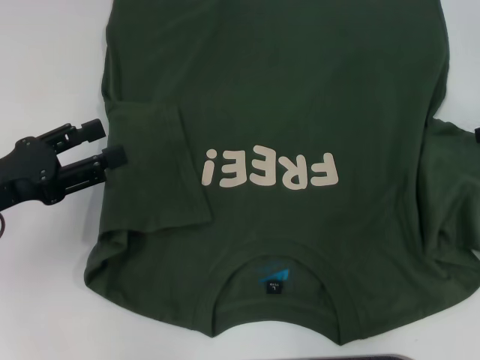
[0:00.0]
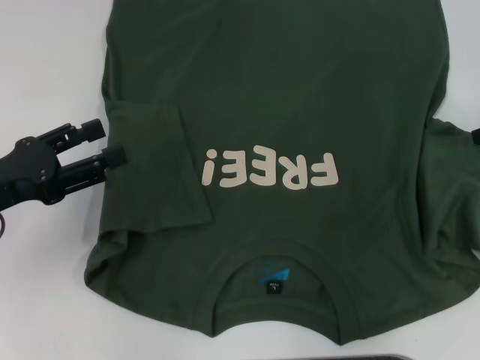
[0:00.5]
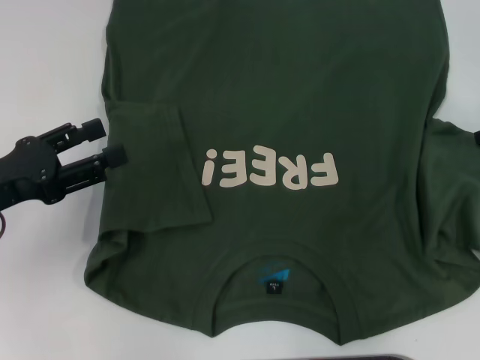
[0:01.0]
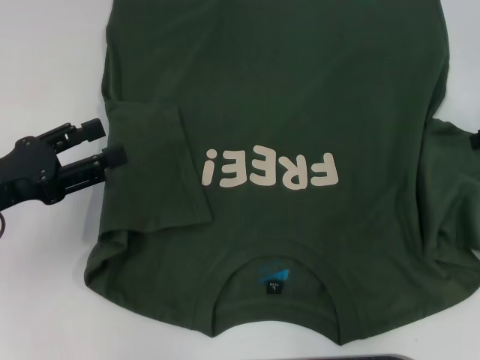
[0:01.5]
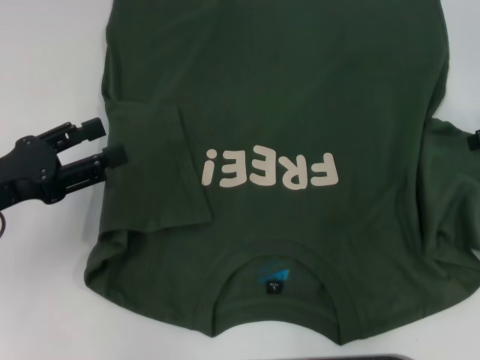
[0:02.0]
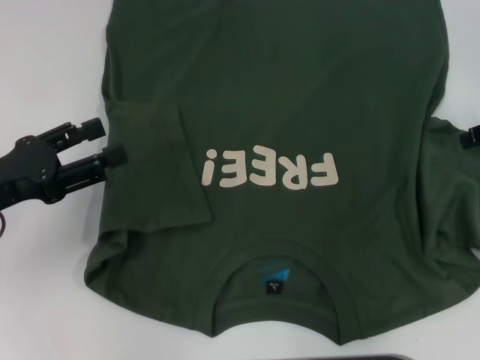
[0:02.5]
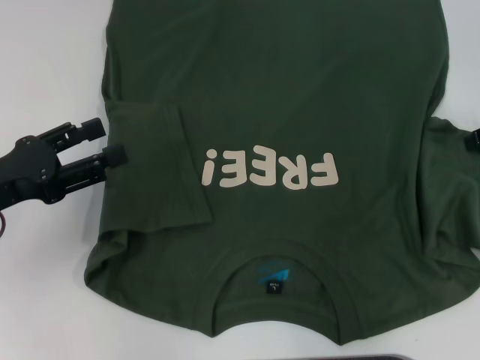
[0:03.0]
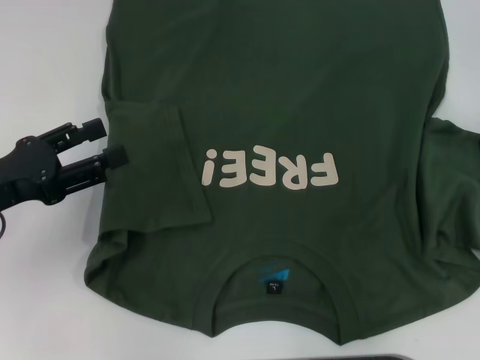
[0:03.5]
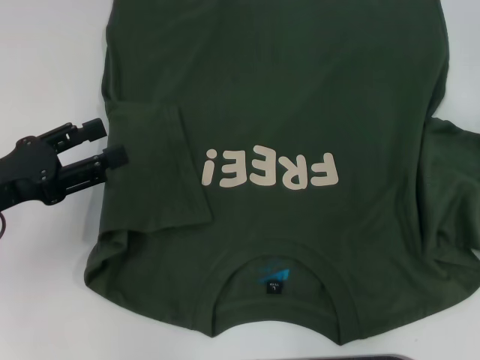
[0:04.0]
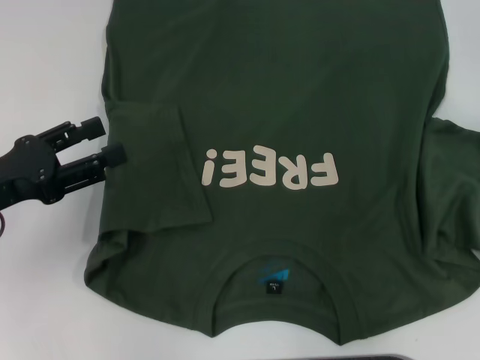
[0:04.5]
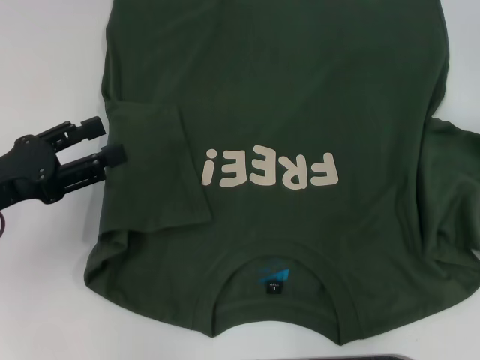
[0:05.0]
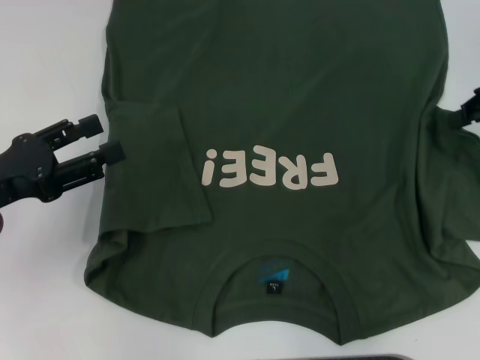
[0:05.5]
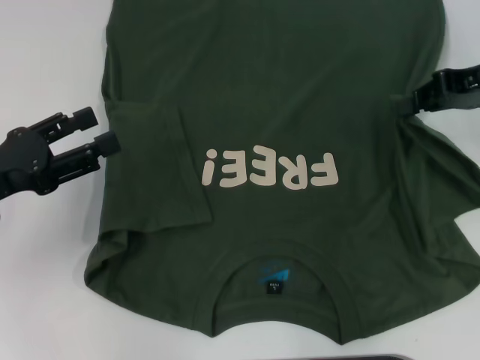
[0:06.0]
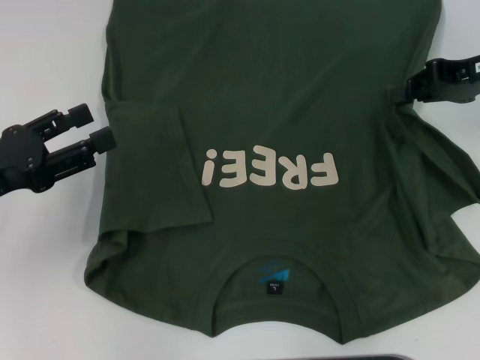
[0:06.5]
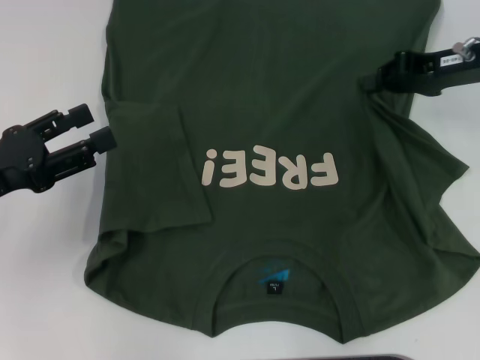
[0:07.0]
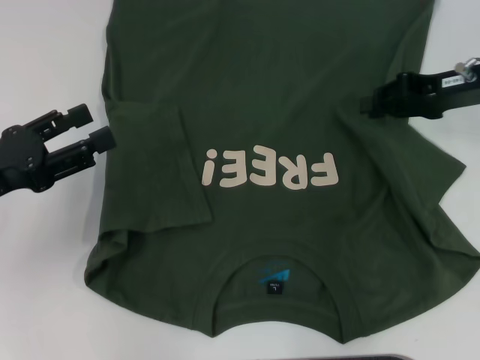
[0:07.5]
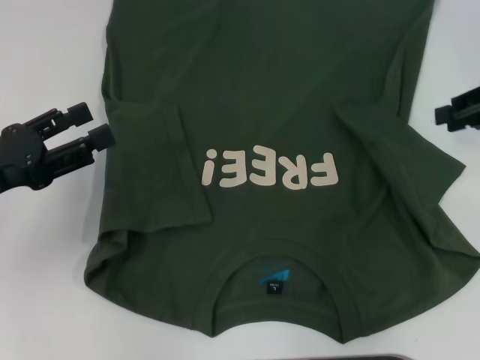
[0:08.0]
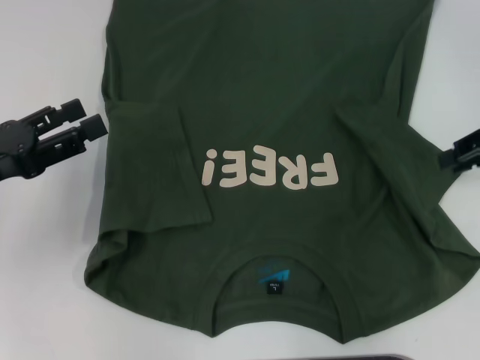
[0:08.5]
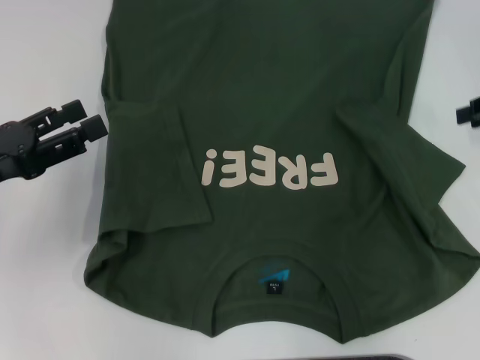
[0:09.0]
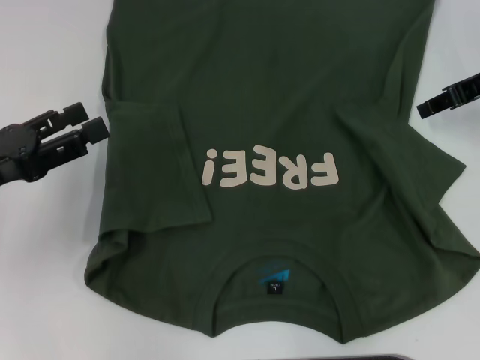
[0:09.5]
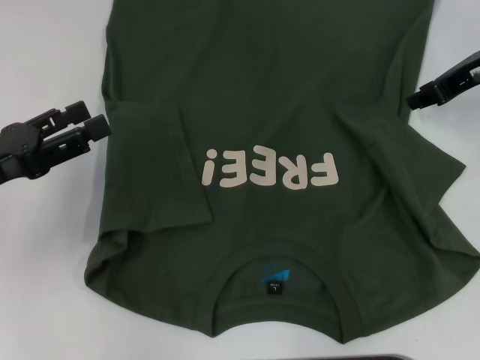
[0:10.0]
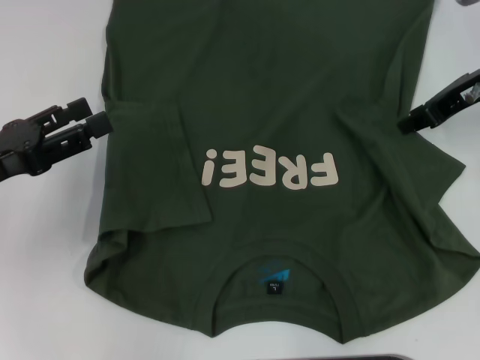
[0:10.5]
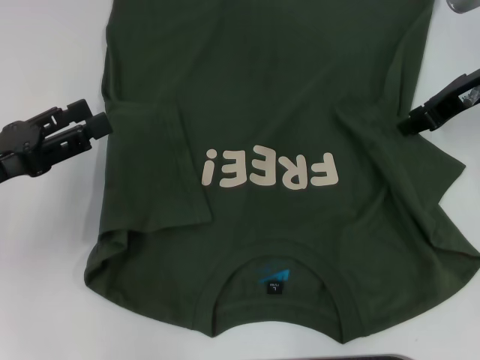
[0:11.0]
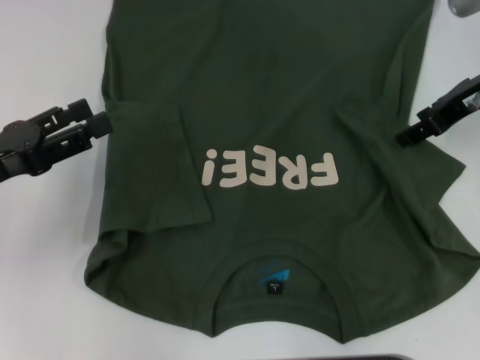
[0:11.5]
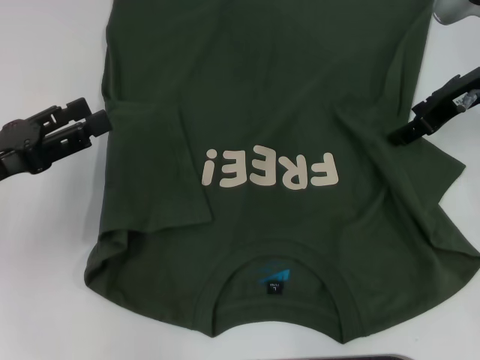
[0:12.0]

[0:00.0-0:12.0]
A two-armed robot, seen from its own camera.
0:00.0 to 0:02.0: The two grippers keep their place.
0:04.0 to 0:06.0: The right gripper shifts approximately 5 cm to the left.
0:06.0 to 0:08.0: The right gripper shifts by about 5 cm.
0:08.0 to 0:10.0: The right gripper is displaced to the left by some 5 cm.
0:10.0 to 0:12.0: The right gripper opens.

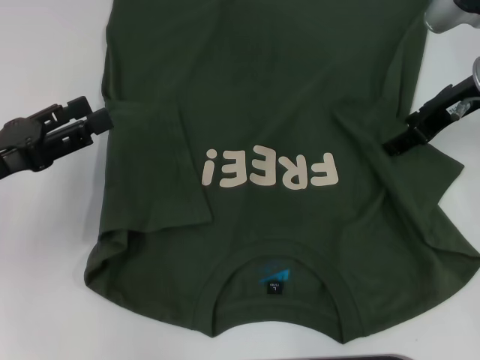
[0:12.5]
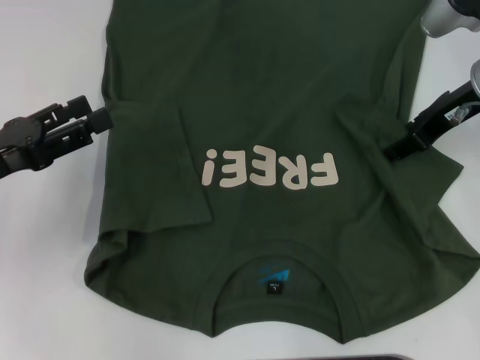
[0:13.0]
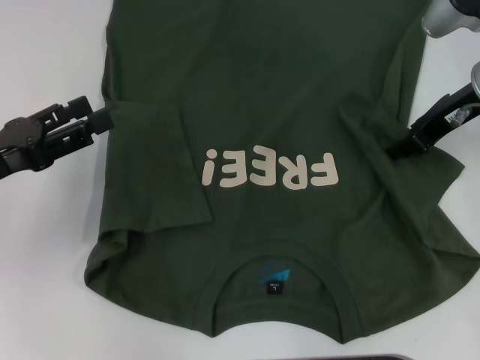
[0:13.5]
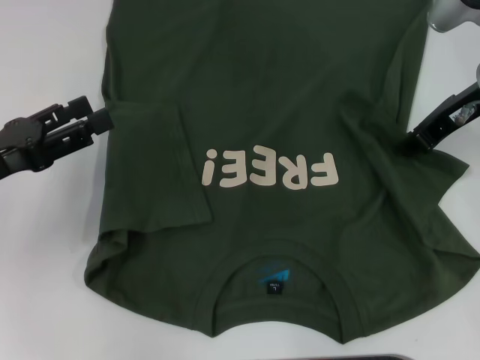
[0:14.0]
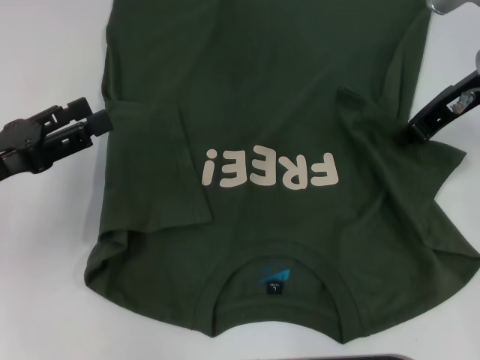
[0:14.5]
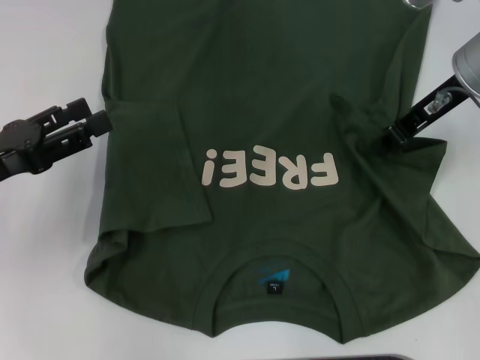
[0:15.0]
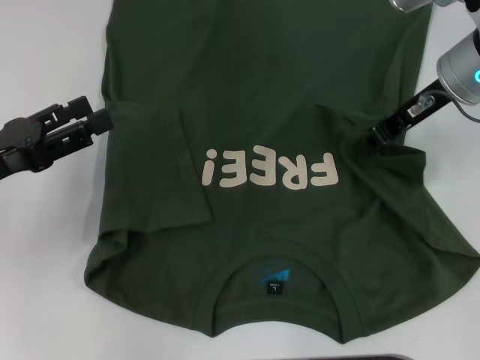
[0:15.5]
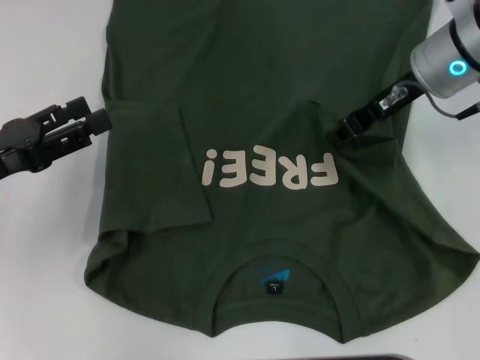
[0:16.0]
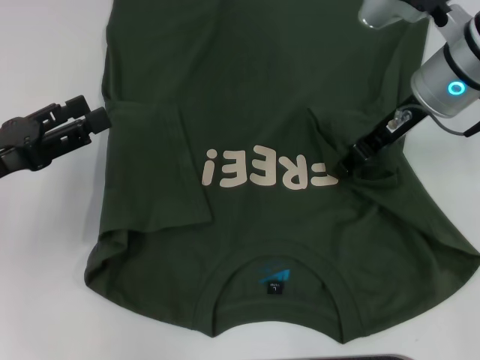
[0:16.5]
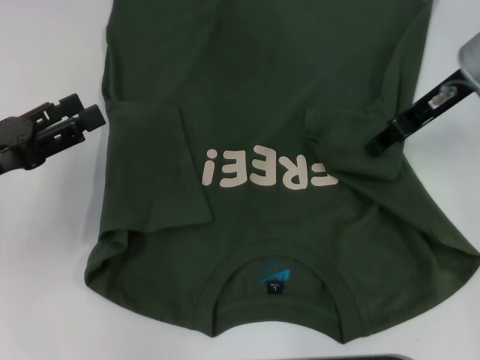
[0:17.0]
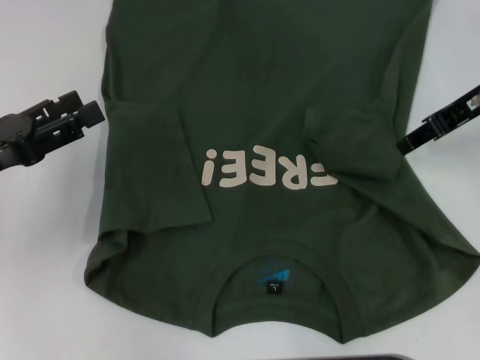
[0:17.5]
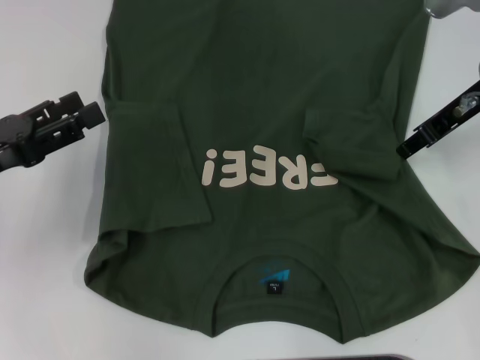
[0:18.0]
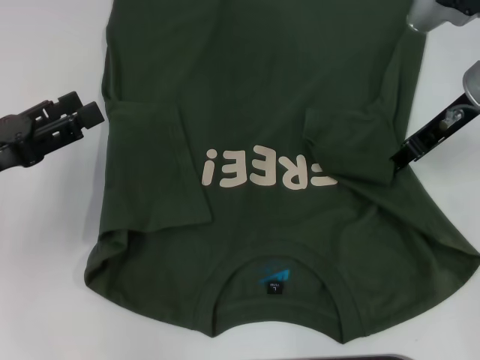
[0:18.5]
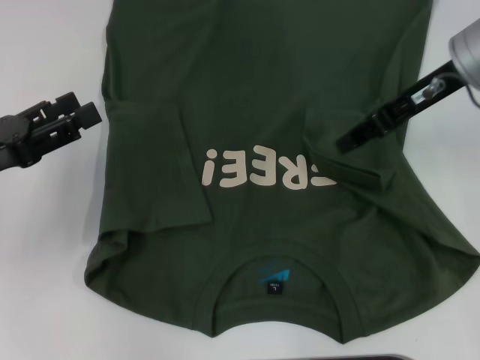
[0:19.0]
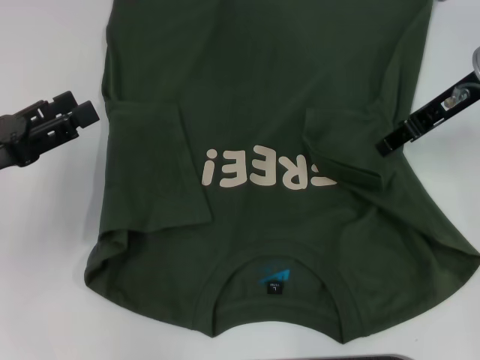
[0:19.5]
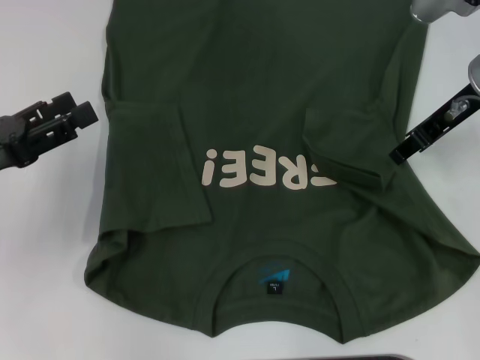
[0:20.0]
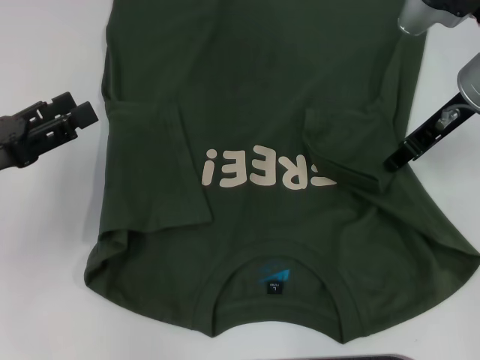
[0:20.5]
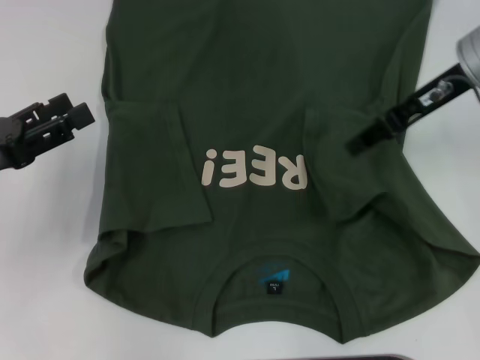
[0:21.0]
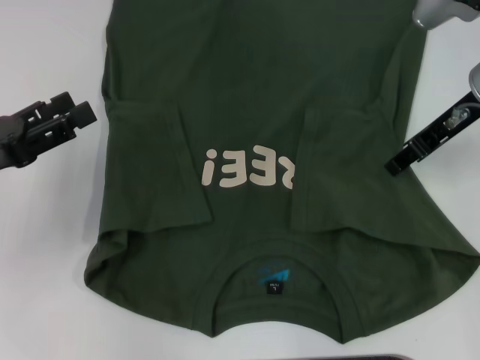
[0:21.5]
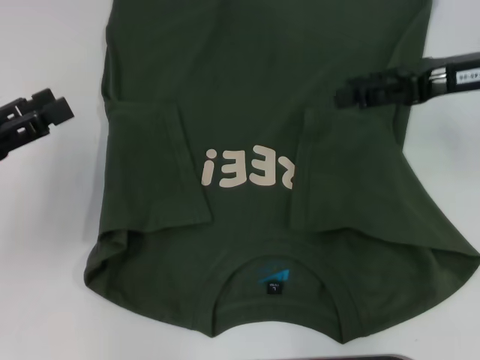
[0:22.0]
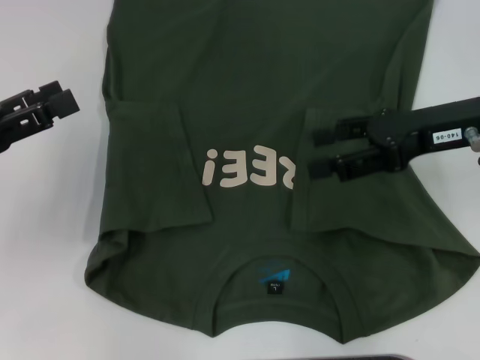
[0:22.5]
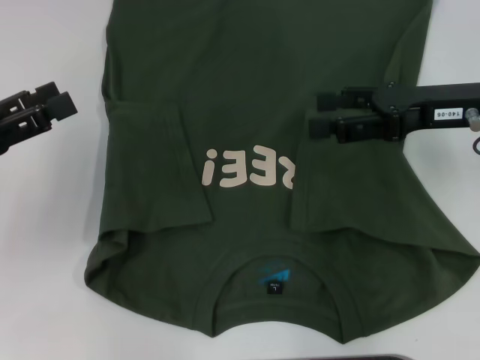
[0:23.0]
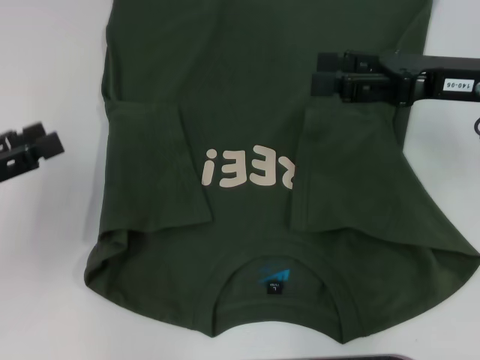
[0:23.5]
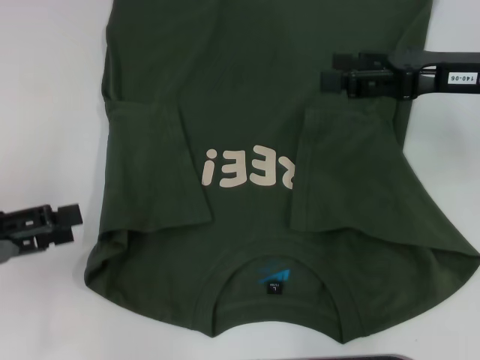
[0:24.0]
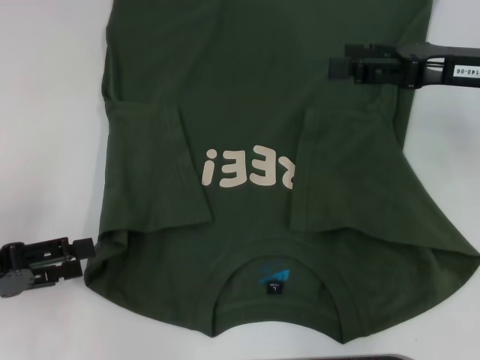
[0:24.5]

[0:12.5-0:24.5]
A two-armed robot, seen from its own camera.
Step, 0:12.5 to 0:21.5: Fold the bottom right sleeve with your right hand.
0:12.5 to 0:14.5: The right gripper closes up.
0:14.5 to 0:16.5: The right gripper goes about 5 cm to the left.
0:18.5 to 0:20.5: The grippers make only small movements.
0:20.5 to 0:22.5: The right gripper travels backward by roughly 5 cm, and opens up.
0:22.5 to 0:24.5: The left gripper shifts about 5 cm backward.

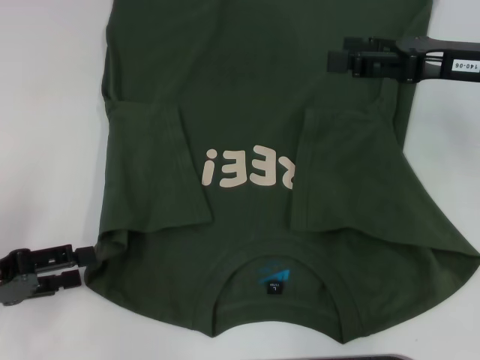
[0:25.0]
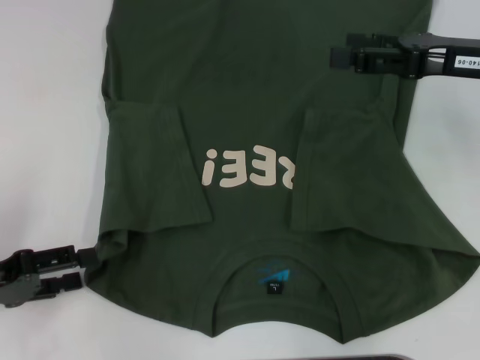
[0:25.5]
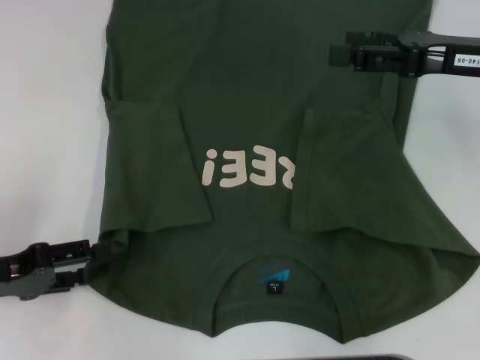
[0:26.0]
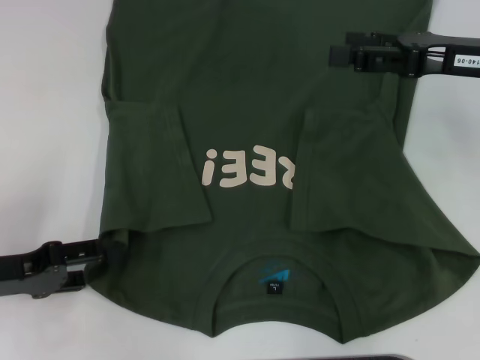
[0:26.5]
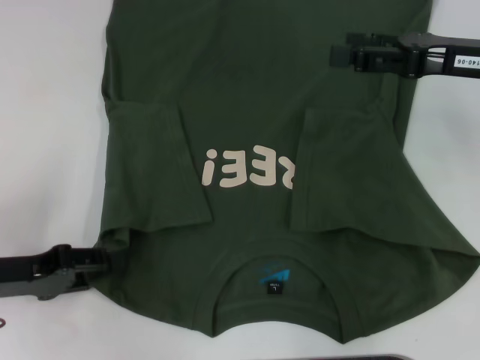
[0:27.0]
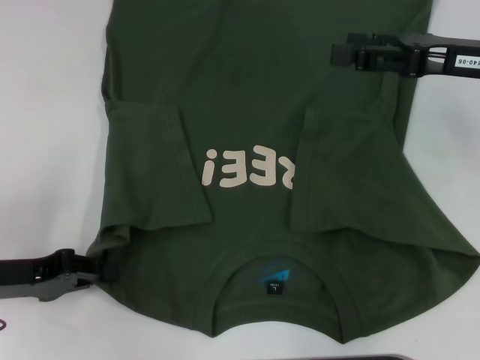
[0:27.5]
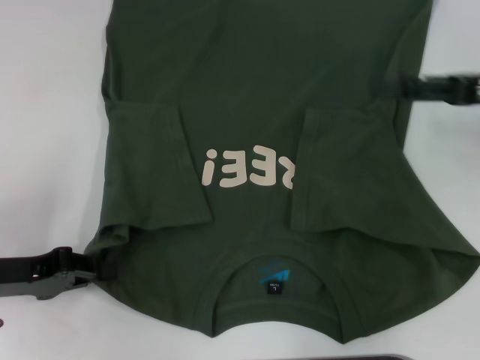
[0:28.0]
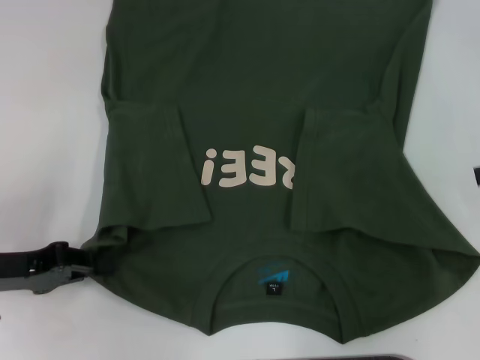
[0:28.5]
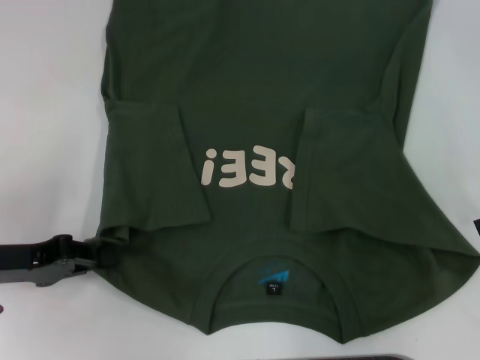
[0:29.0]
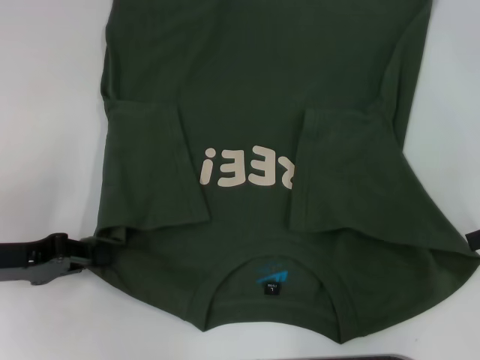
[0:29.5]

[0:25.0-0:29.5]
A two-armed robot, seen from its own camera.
Step, 0:25.0 to 0:27.5: Grab the bottom left corner with your left hand.
0:25.0 to 0:27.0: The grippers make only small movements.
0:27.0 to 0:29.5: The right gripper moves to the right and backward, about 10 cm. Meanwhile the left gripper closes.
